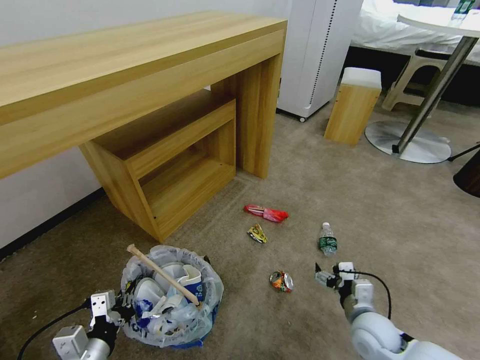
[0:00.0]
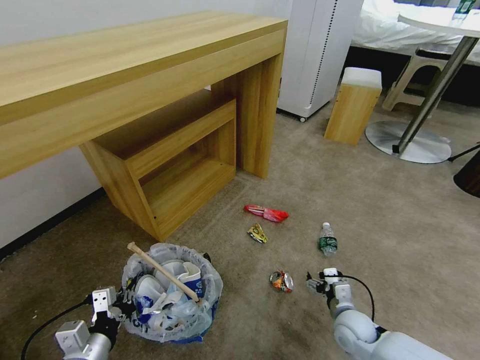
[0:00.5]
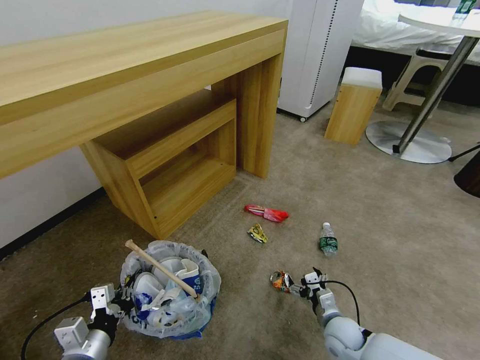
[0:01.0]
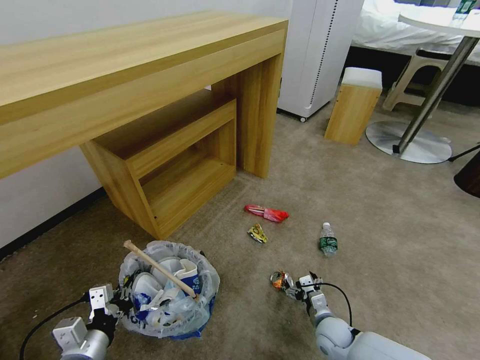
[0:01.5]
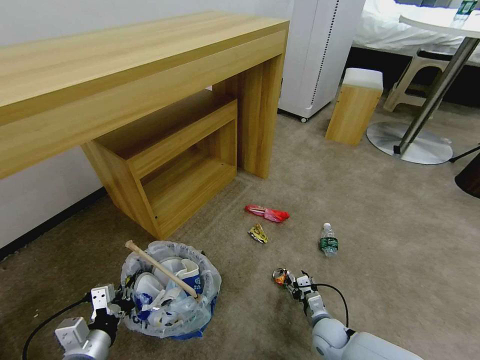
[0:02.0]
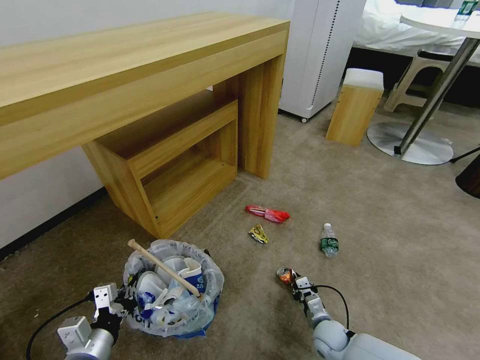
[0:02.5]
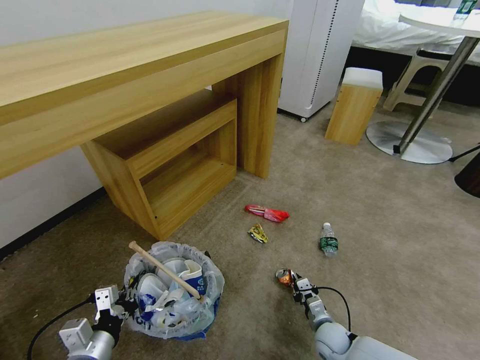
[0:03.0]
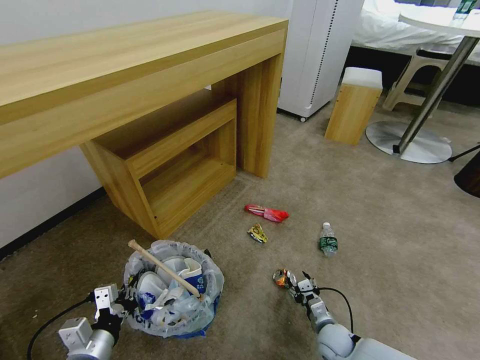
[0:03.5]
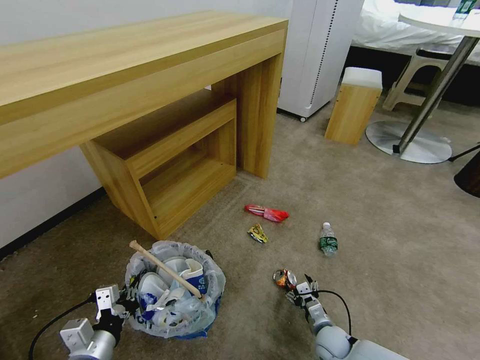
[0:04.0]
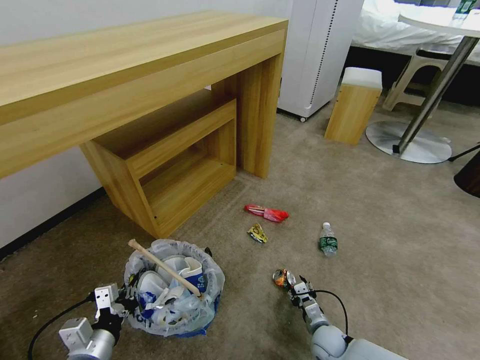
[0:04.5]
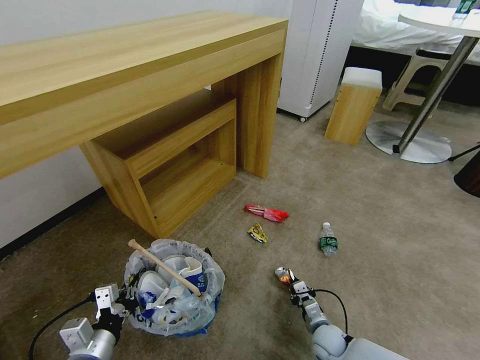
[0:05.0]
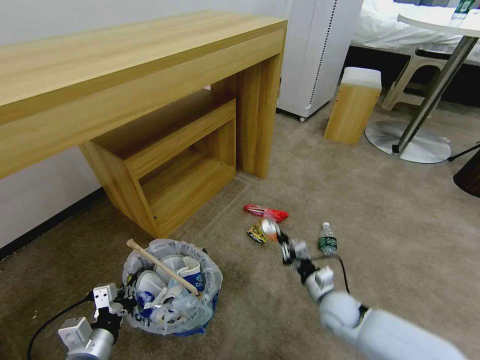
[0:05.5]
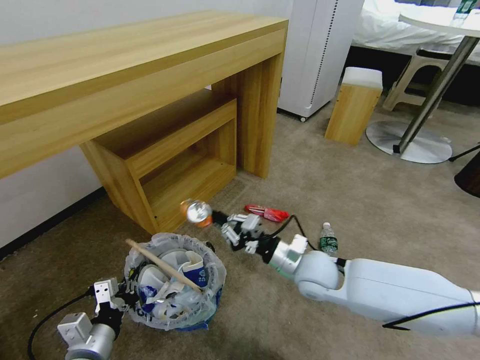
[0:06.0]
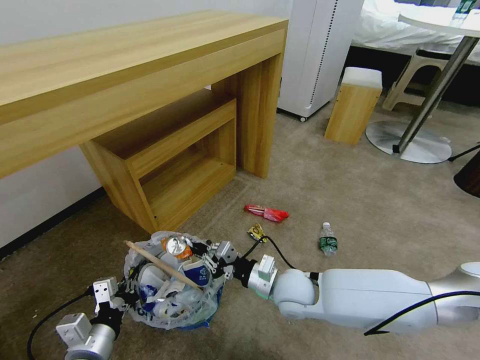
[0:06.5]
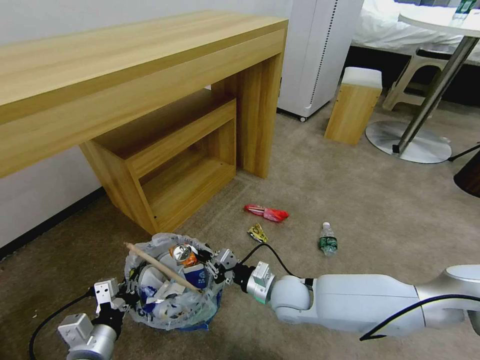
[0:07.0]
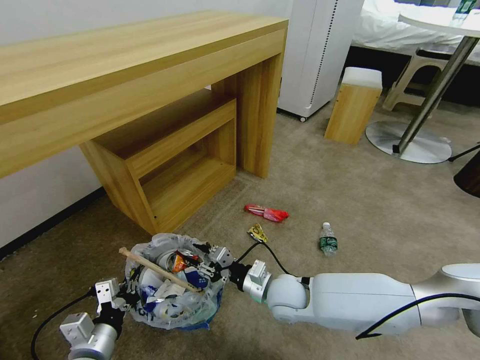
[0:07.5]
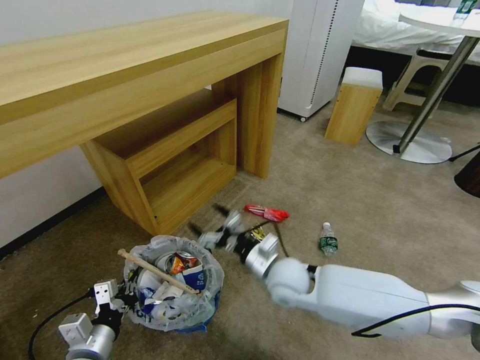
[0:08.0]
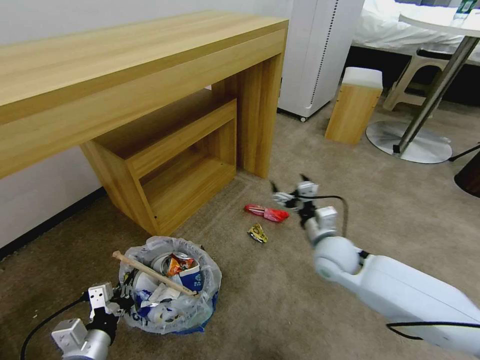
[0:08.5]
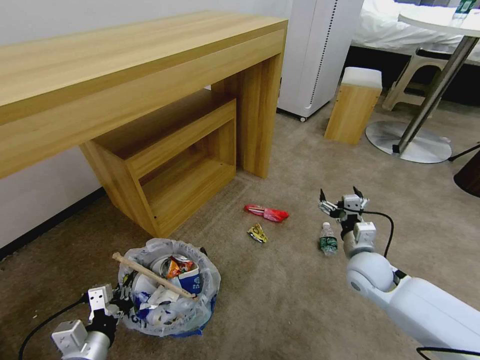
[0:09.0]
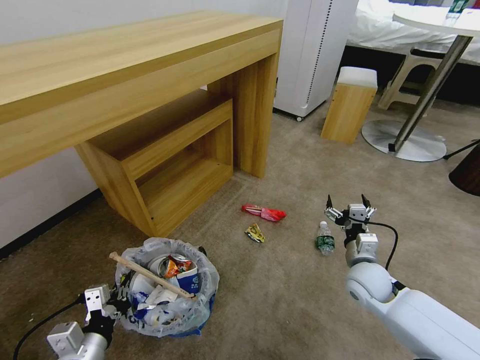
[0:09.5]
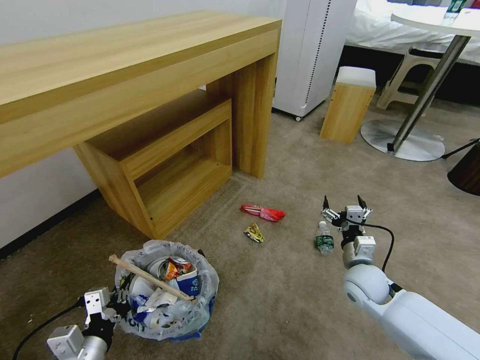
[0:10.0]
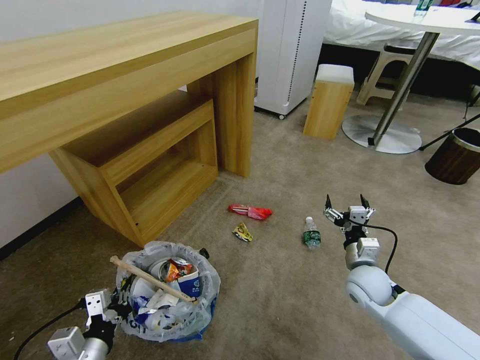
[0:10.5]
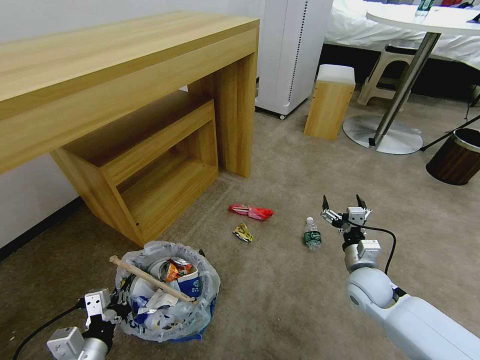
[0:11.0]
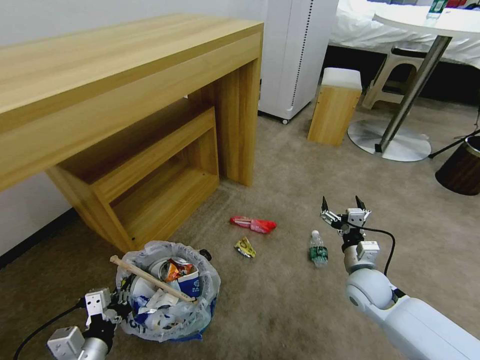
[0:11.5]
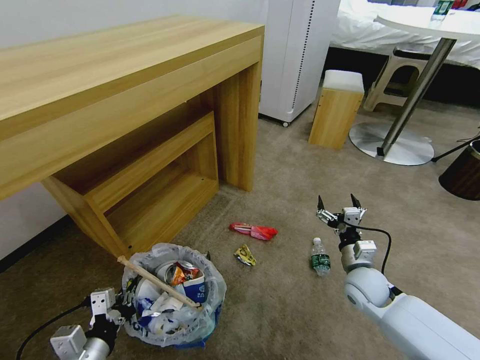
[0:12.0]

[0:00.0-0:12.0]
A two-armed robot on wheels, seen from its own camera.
Task of the whole recording: Pick up the trash bin and place the garbage on the floor into it.
0:00.0 to 0:02.0: The right gripper is displaced downward by approximately 15 cm, and closes up.
0:02.0 to 0:04.0: The right gripper closes and opens again.
0:04.0 to 0:06.0: The right gripper heads upward, covering some 25 cm, and closes its fingers.
0:06.0 to 0:08.0: The right gripper travels to the left by roughly 5 cm, and opens.
0:08.0 to 0:10.0: The right gripper shifts about 20 cm to the right.

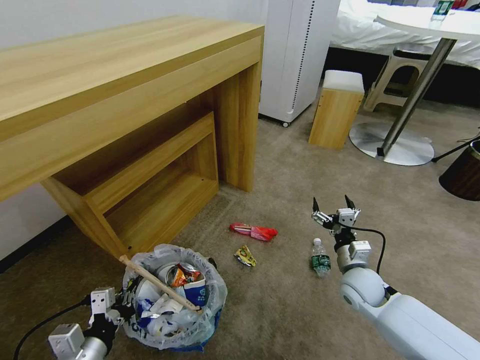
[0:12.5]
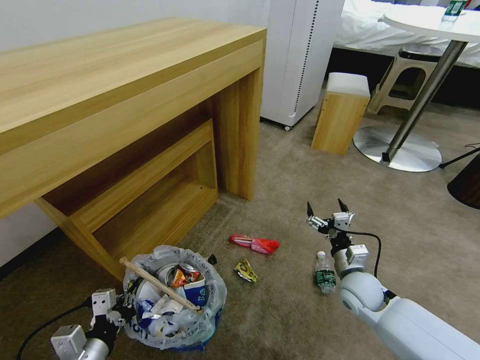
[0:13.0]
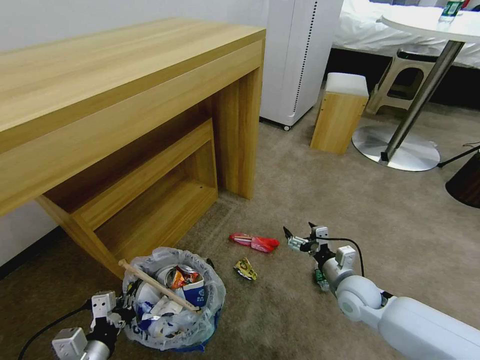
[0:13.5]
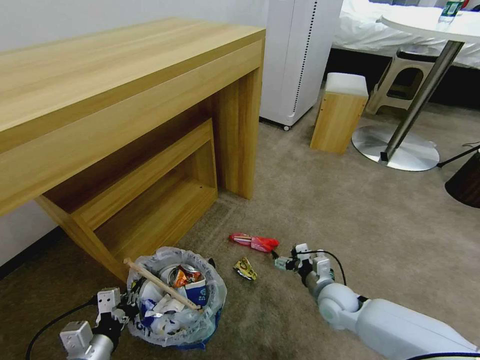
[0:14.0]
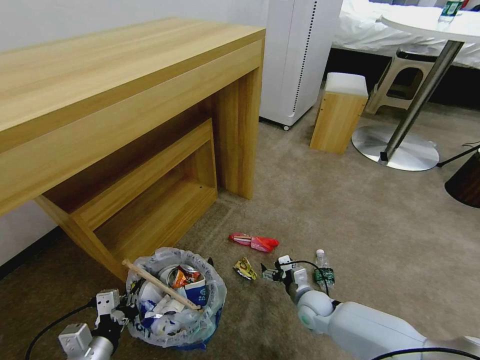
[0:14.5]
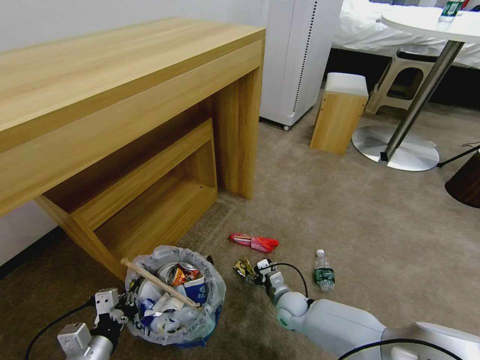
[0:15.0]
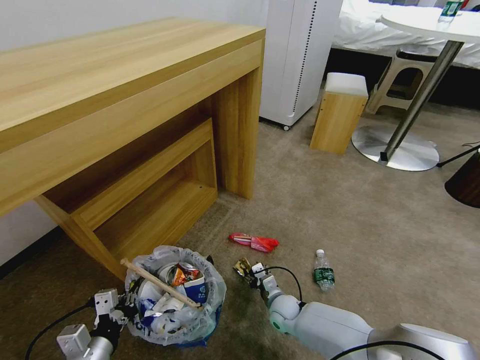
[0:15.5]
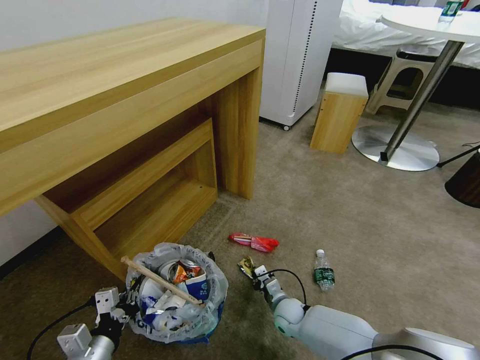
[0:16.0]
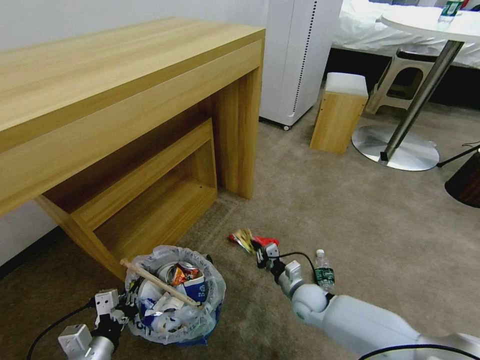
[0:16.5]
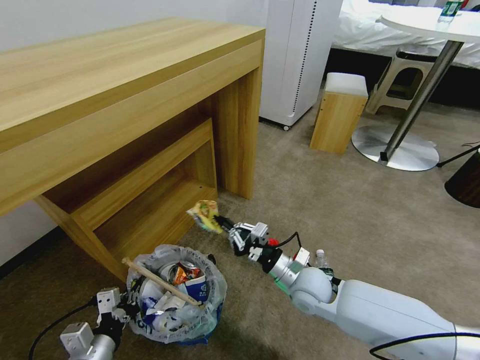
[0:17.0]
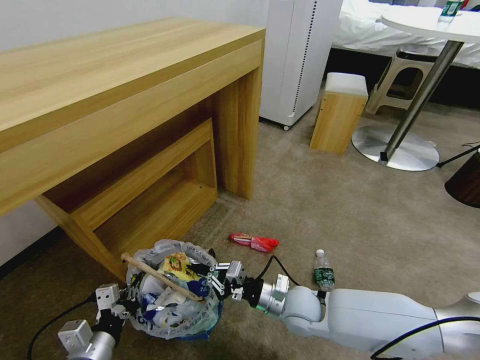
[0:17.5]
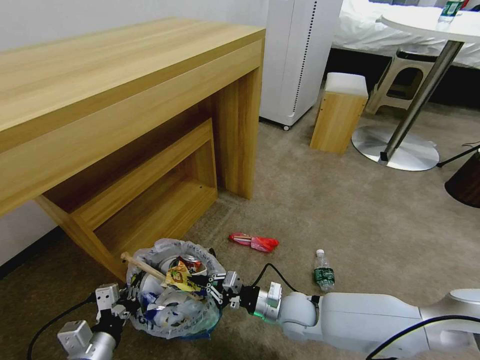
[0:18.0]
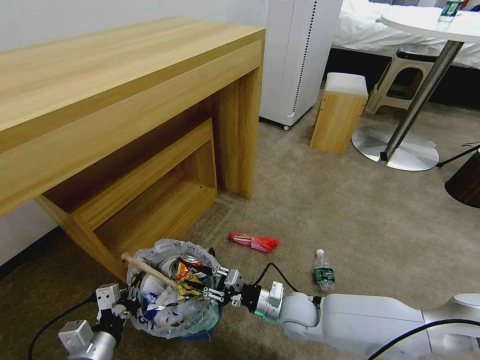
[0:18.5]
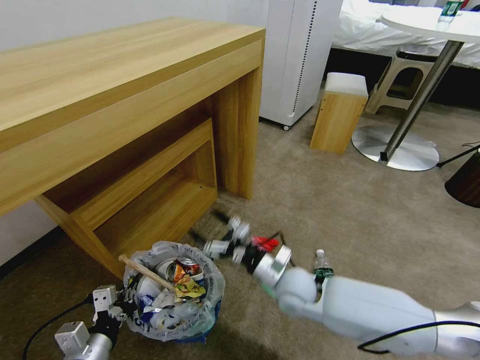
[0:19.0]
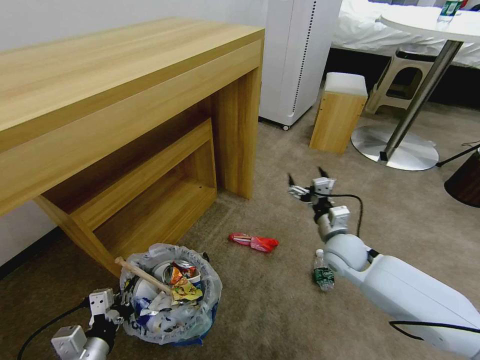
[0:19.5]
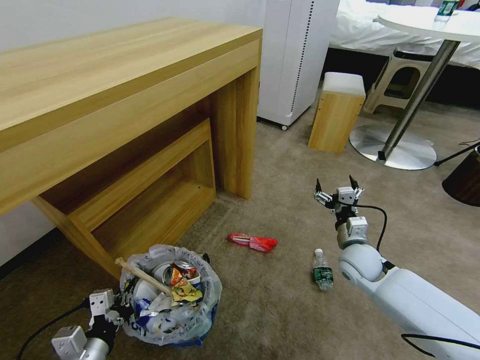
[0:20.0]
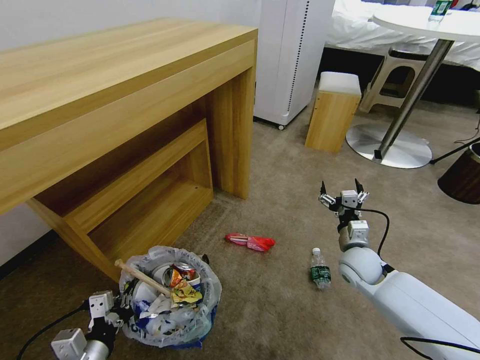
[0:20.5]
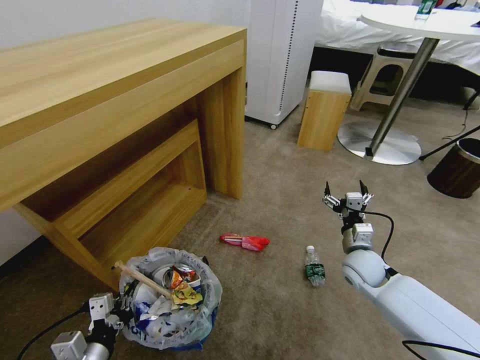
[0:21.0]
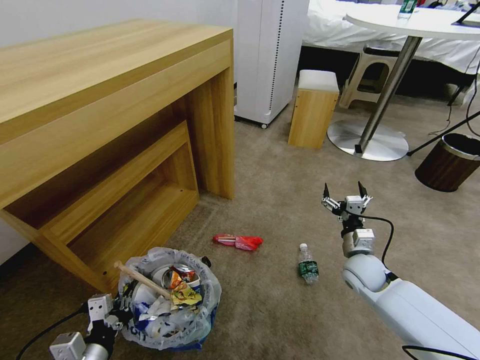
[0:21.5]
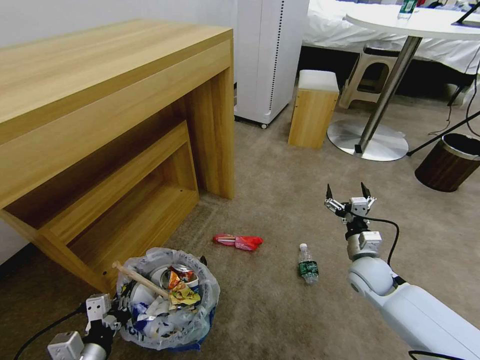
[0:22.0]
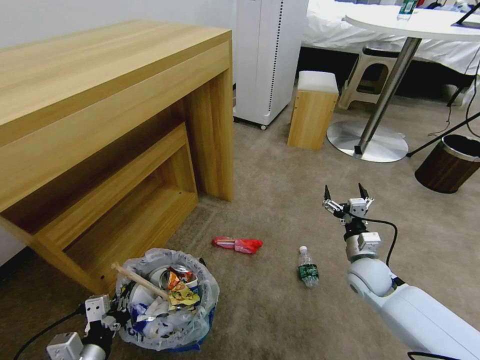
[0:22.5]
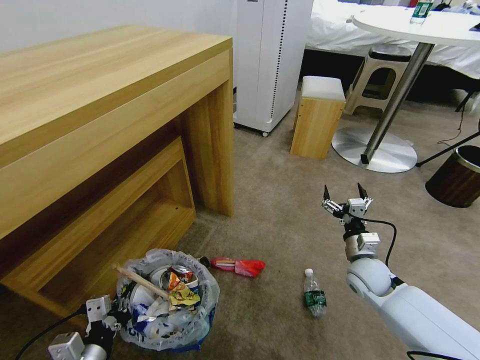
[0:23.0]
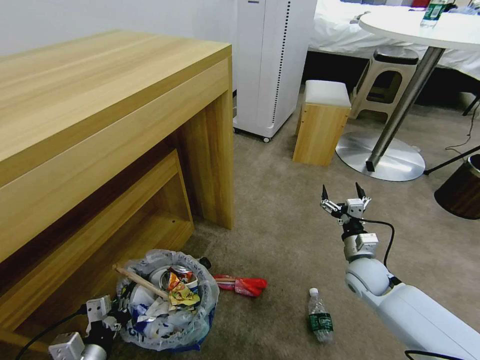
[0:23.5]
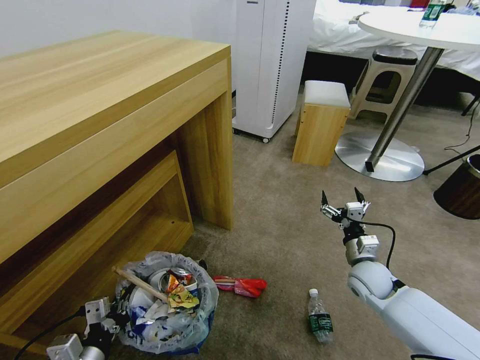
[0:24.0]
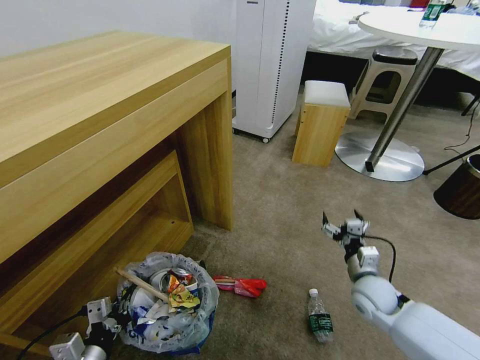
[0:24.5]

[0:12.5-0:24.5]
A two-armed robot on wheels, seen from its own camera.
Task of the whole recording: Pick up the trash bin and place the garbage on the floor into it.
0:12.5 to 0:14.5: The right gripper shifts approximately 15 cm downward and to the left.
0:14.5 to 0:16.5: The right gripper moves some 10 cm to the left and comes back, and closes up.
0:16.5 to 0:18.5: The right gripper heads upward, to the left and backward, covering some 10 cm, and opens.
0:18.5 to 0:20.5: The right gripper moves to the right, forward and upward, about 20 cm, and opens its fingers.

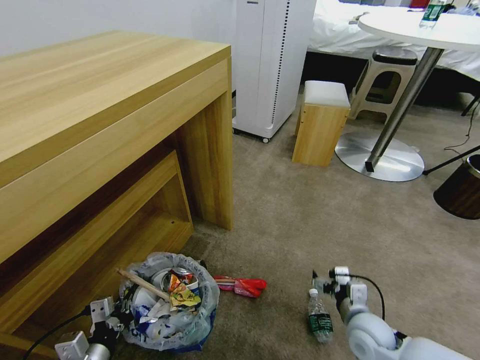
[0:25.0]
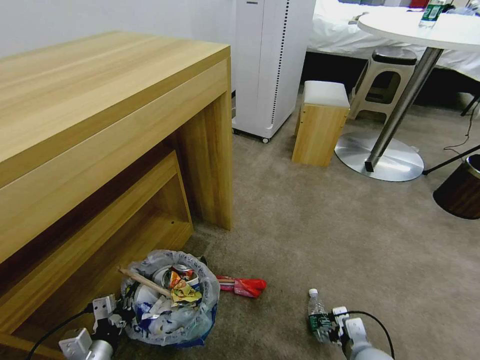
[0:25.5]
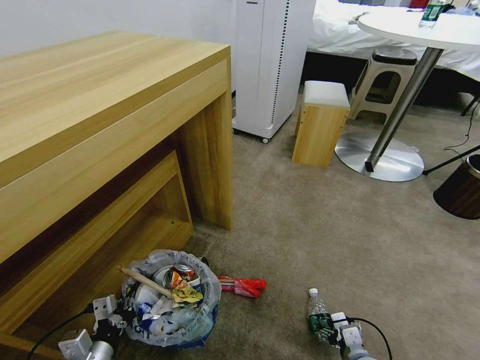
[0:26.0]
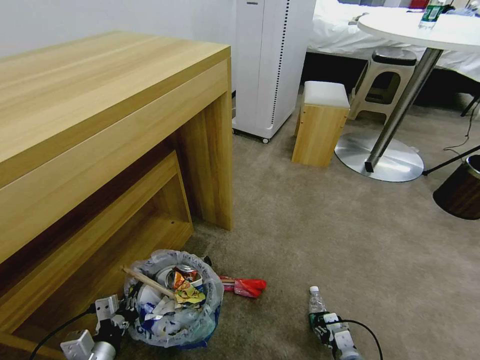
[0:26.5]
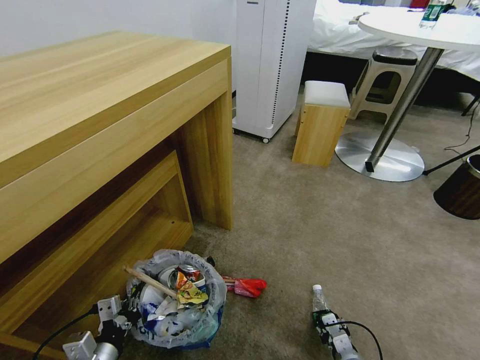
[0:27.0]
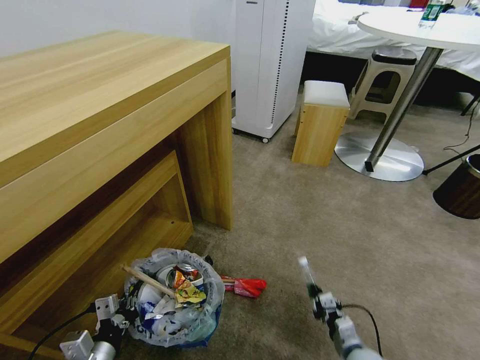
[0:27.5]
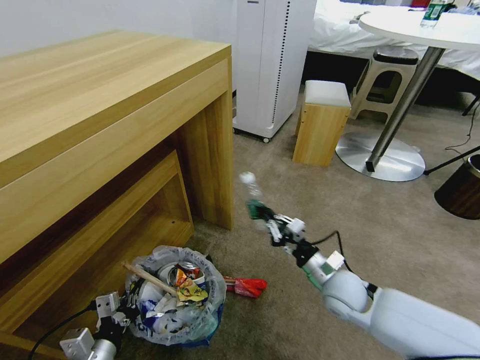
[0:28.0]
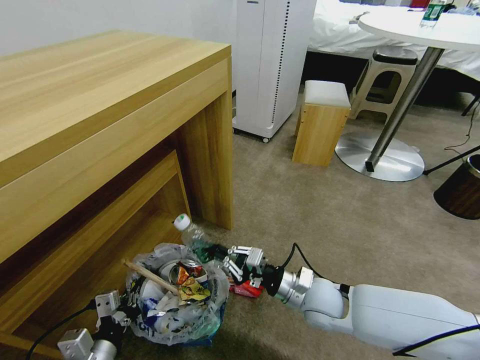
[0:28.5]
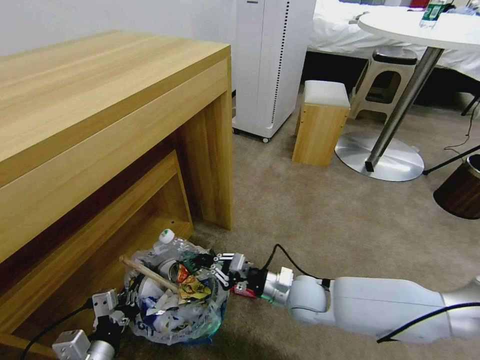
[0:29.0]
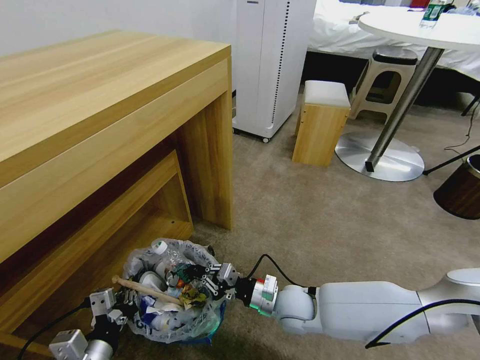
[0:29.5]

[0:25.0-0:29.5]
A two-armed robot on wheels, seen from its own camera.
Task of the whole recording: Pick up the trash bin and place the garbage on the floor into it.
0:25.0 to 0:27.0: The right gripper heads downward and backward, covering roughly 15 cm, and closes.
0:27.0 to 0:29.5: The right gripper travels to the left, forward and upward by about 25 cm, and closes.
